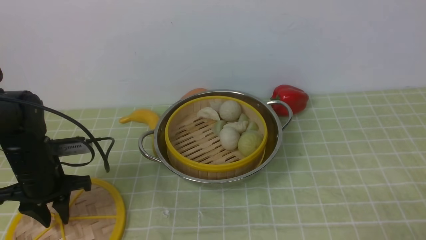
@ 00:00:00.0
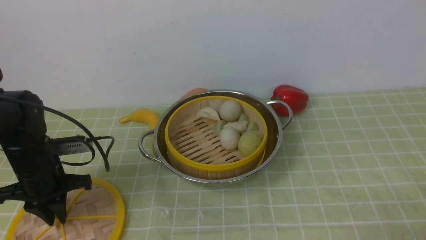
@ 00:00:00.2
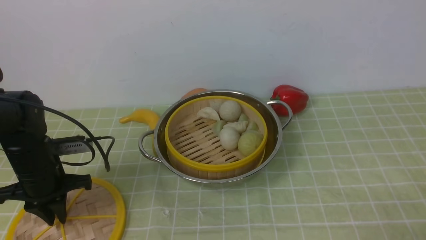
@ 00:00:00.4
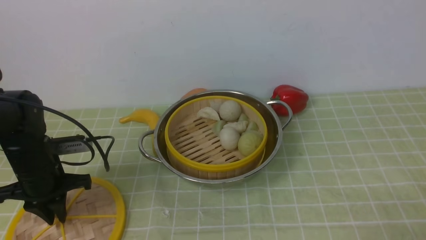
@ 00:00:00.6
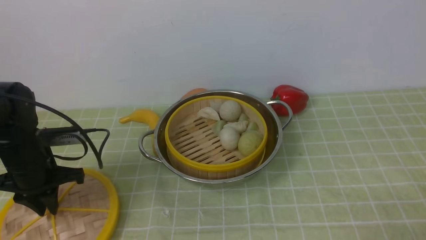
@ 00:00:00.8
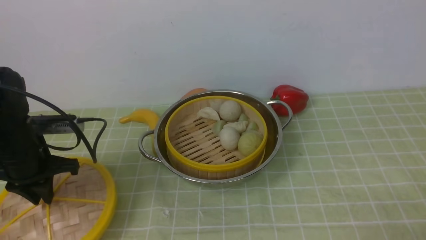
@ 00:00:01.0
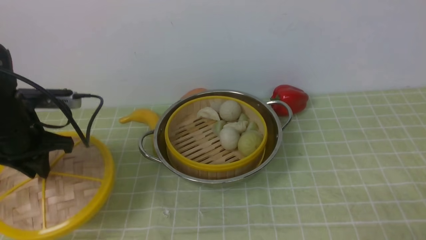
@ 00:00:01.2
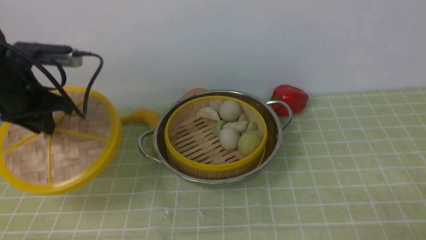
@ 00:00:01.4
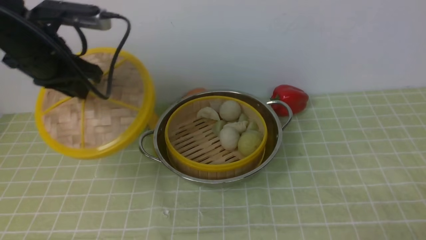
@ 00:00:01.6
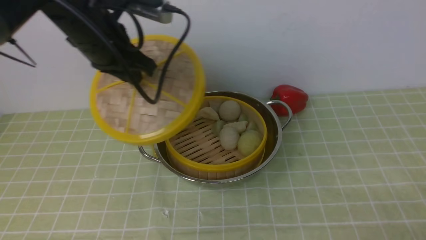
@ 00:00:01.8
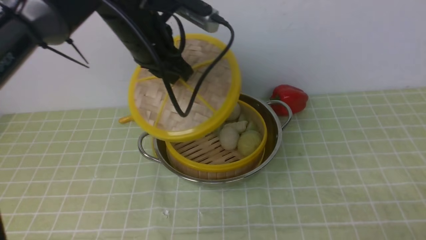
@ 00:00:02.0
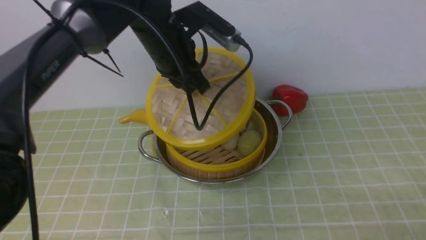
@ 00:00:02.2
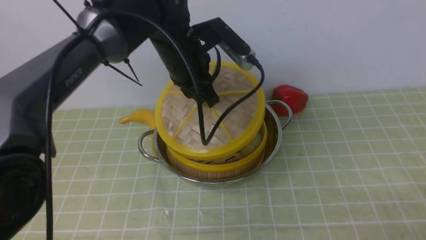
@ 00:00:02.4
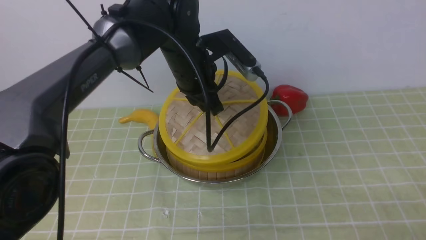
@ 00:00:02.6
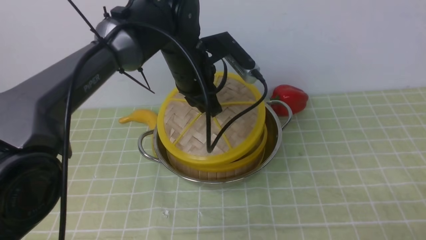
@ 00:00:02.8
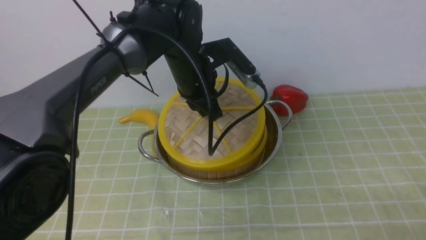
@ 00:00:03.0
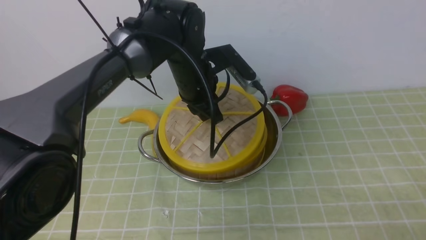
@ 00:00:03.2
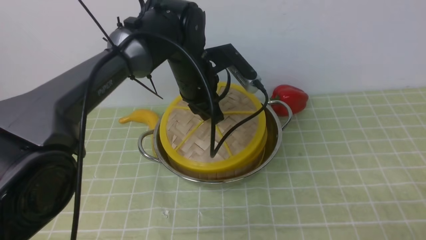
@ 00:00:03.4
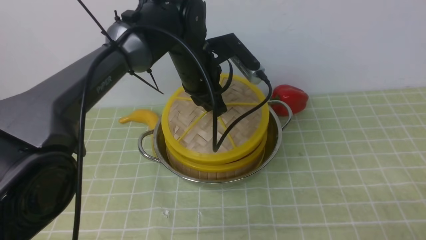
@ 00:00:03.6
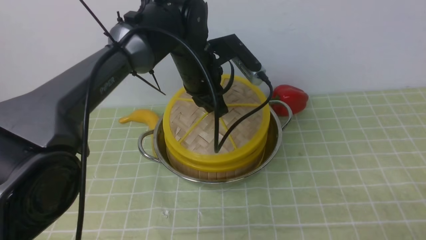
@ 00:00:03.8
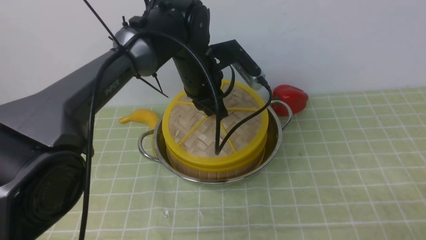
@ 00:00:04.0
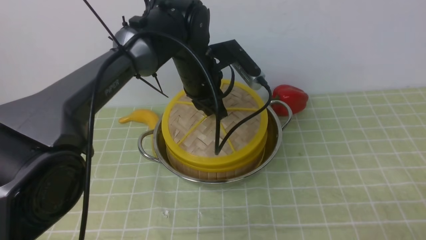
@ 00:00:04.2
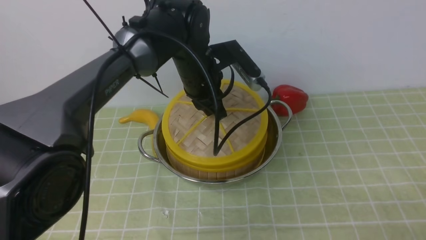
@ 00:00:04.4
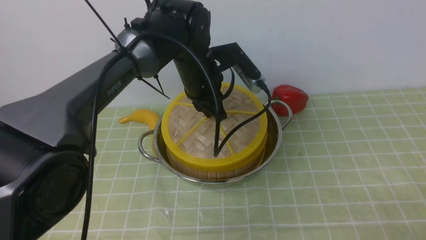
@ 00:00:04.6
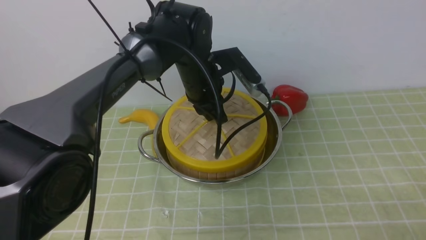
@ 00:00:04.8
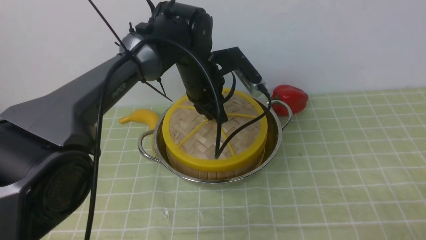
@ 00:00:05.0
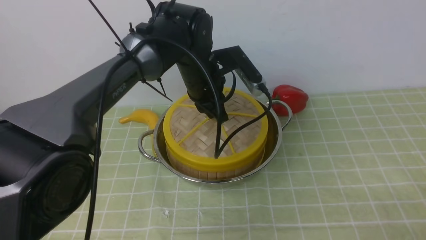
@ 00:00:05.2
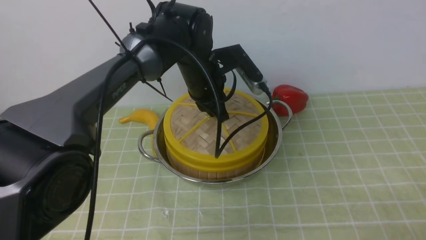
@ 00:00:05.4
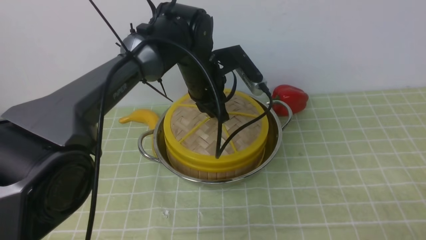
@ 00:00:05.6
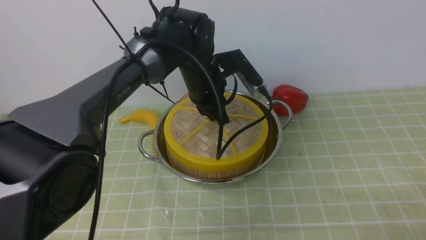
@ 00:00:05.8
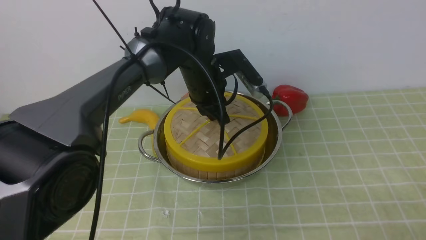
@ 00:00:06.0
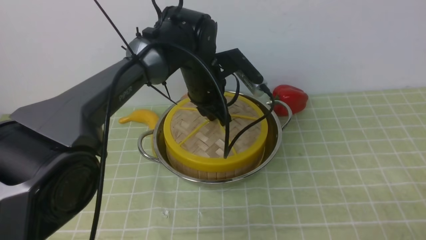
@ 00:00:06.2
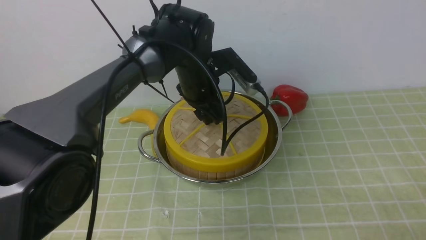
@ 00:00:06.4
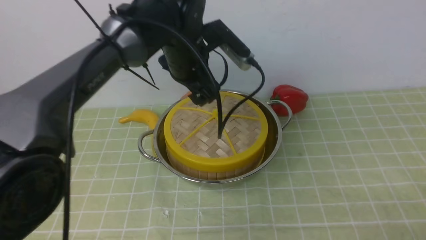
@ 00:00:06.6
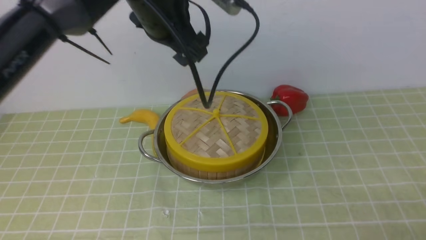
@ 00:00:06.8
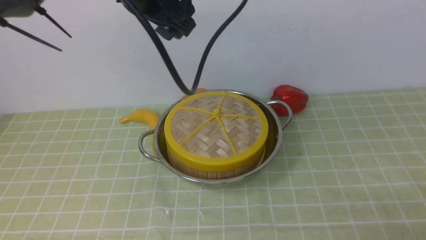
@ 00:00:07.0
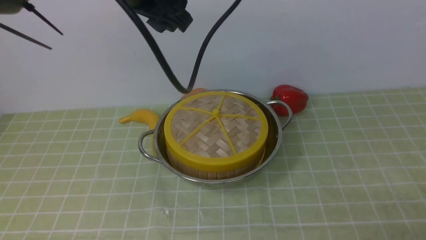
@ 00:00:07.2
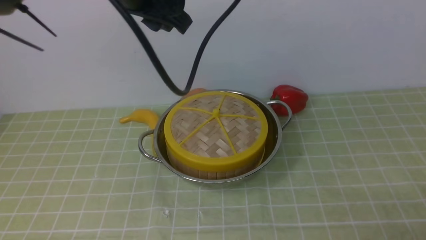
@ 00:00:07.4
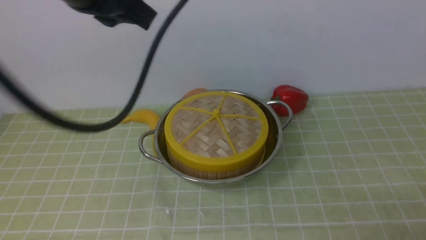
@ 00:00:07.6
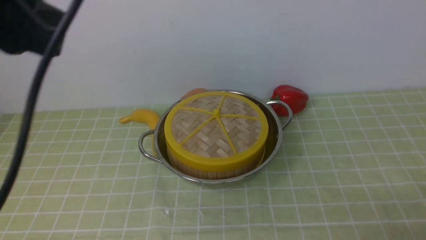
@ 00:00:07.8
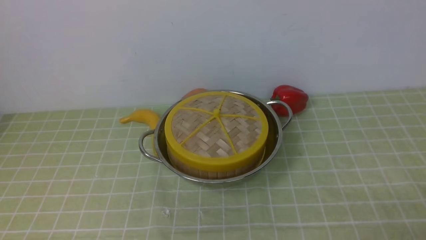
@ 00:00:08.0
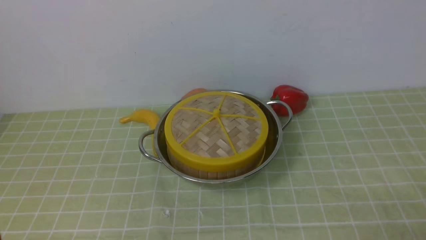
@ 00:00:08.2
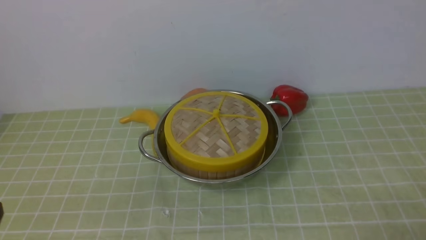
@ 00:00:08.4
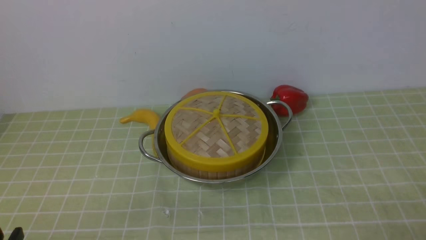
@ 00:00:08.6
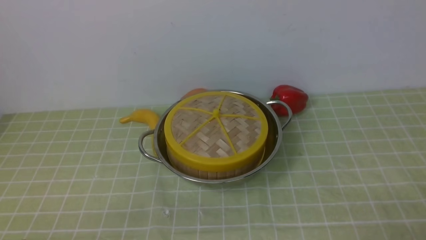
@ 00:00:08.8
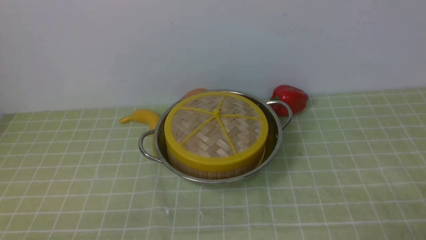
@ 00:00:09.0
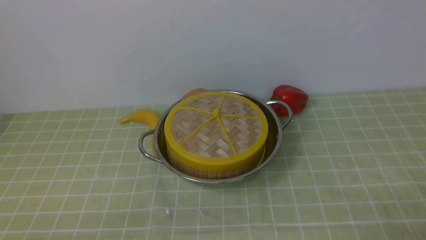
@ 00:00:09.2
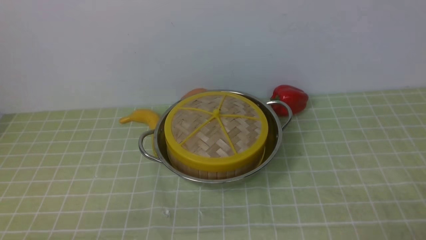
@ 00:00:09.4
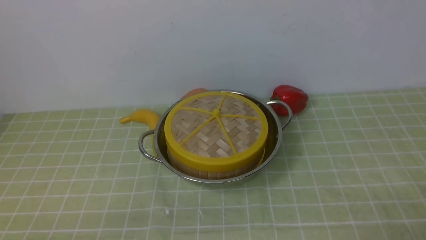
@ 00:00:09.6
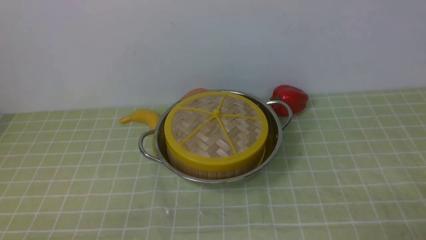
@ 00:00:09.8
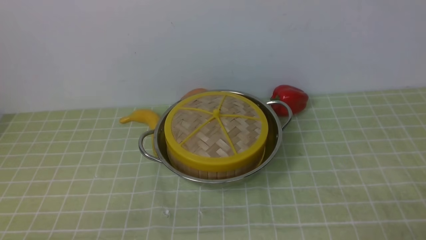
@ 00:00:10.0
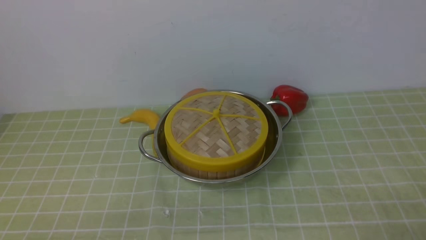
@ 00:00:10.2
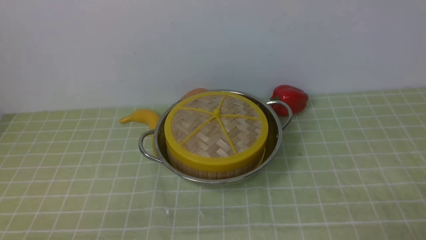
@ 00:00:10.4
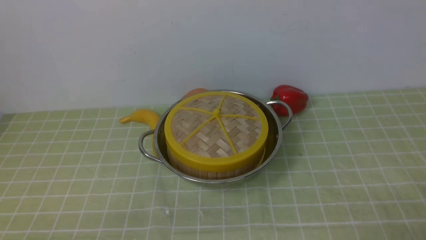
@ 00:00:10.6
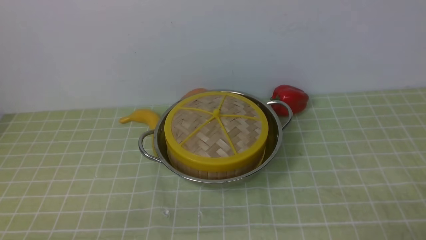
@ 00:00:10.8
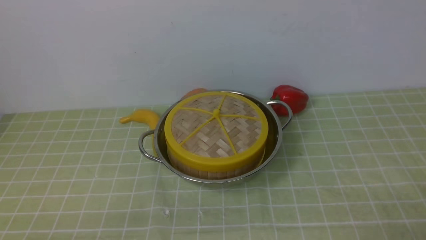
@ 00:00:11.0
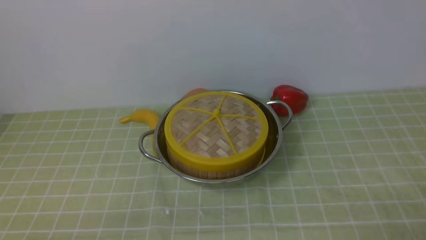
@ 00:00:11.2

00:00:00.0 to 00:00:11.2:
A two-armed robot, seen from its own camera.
Task of the whole recording: place the steamer in the pot on the green tablecloth, and put the lid on the steamer.
Step, 00:00:01.6 to 00:00:06.4: use the left arm to place the steamer lid on the steamer.
00:00:00.0 to 00:00:01.6: The left gripper goes some 15 cm upward.
00:00:01.6 to 00:00:03.2: The left gripper travels to the right by roughly 20 cm.
00:00:03.2 to 00:00:04.8: There are only small adjustments of the grippers.
00:00:04.8 to 00:00:06.4: The left gripper opens its fingers.
00:00:06.4 to 00:00:08.0: The left gripper goes some 40 cm backward, to the left and upward, and closes up.
00:00:09.6 to 00:00:11.2: The two grippers keep their place.
